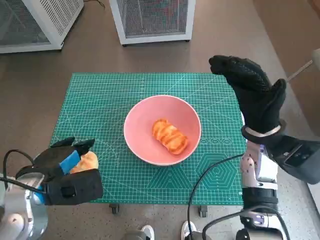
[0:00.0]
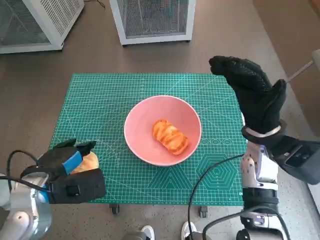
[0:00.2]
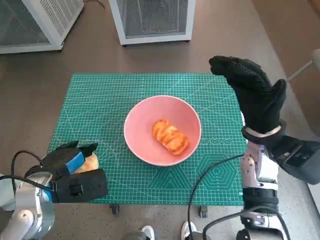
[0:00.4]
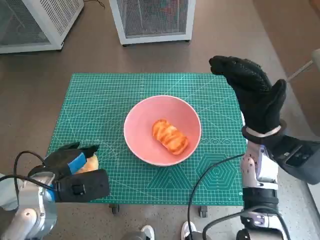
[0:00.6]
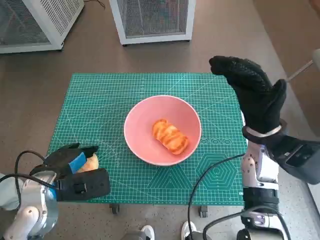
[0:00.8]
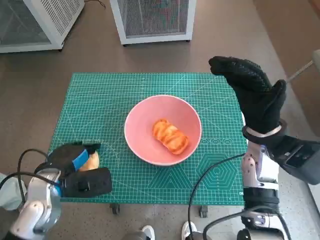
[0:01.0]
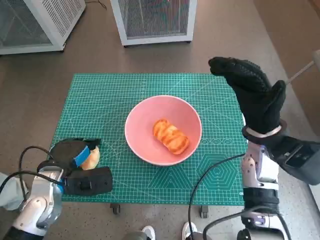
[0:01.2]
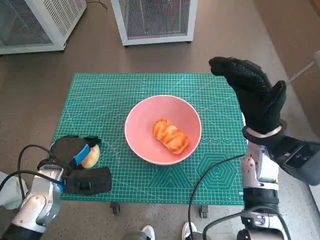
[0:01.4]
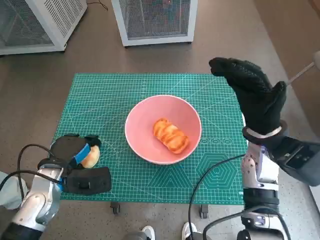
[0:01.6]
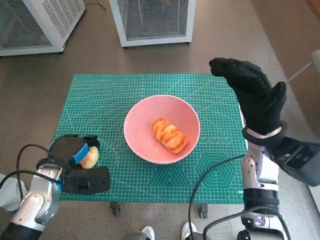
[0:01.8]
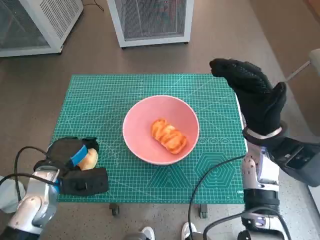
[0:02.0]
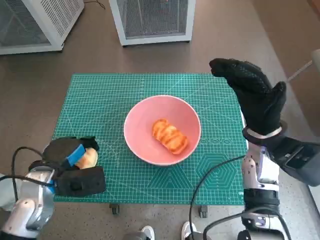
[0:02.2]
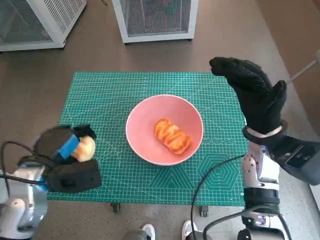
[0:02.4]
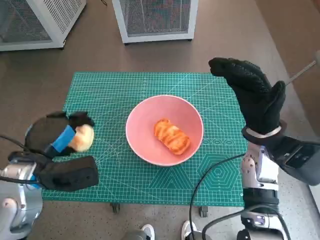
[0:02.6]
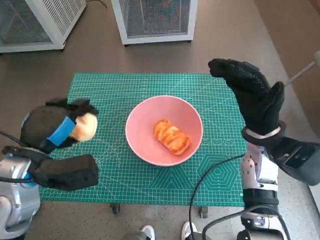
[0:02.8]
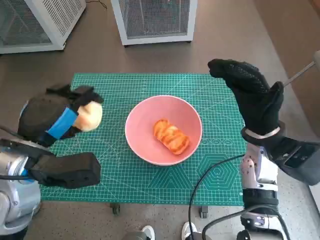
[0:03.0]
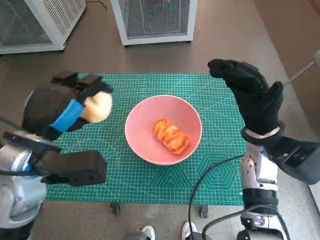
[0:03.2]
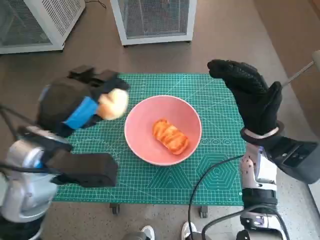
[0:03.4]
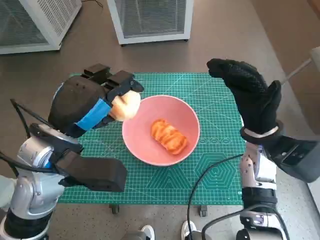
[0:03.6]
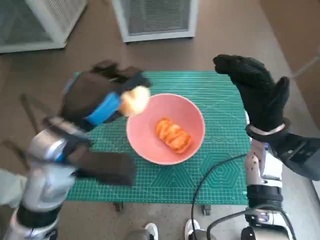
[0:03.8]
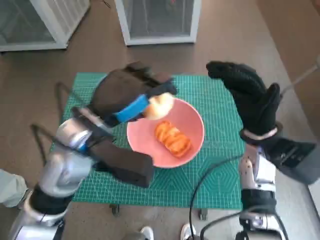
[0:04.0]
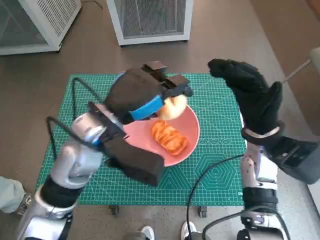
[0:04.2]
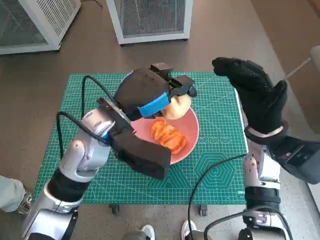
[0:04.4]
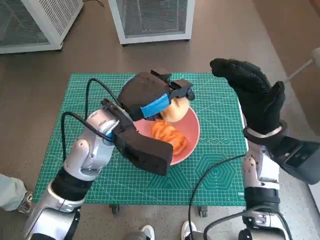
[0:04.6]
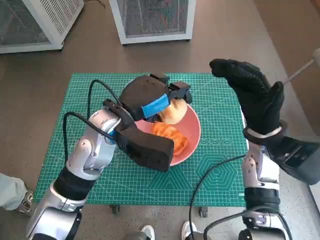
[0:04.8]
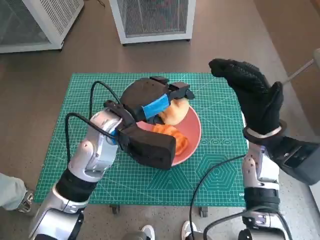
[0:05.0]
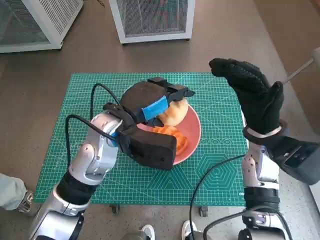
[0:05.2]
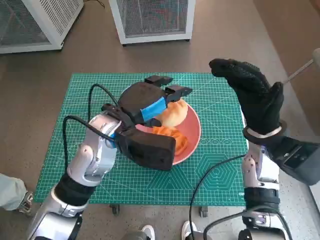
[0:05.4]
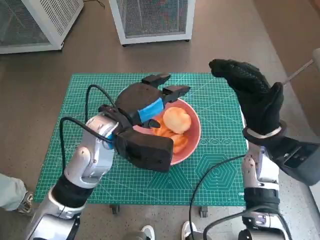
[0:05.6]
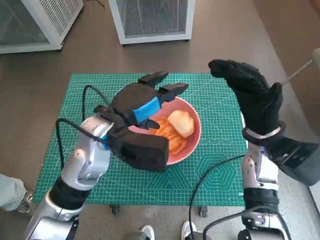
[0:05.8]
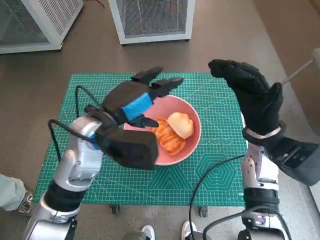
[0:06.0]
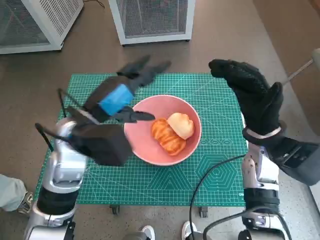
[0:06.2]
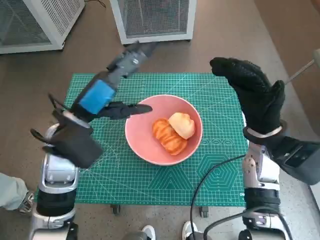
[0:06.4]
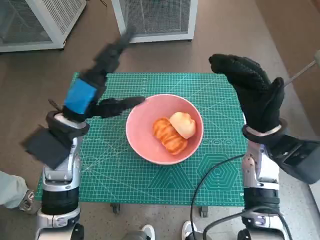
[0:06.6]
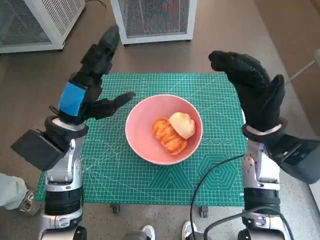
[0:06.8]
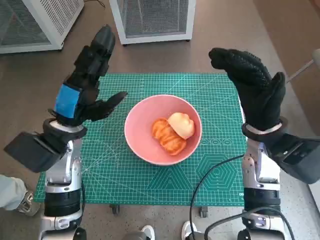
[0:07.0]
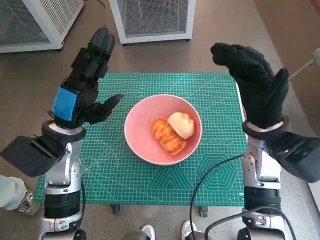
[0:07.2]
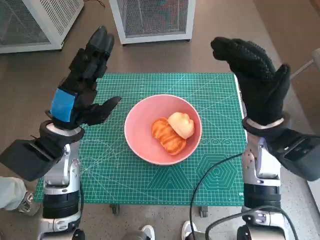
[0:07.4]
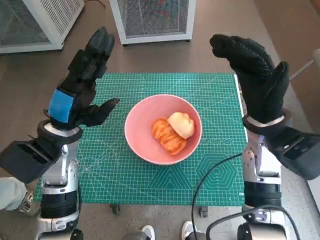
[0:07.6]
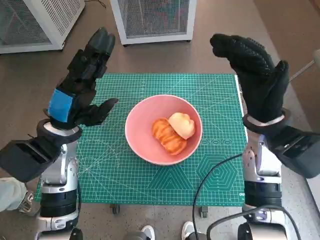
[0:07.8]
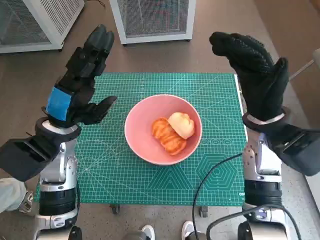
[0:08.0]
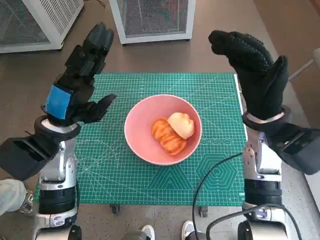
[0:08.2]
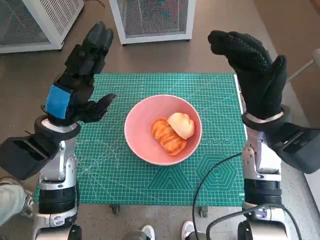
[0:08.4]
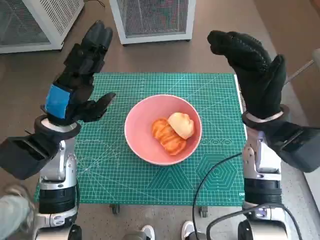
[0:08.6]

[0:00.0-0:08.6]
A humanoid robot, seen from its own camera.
Task of the whole recording: Push the bowl into the center of the table and put the bread into the bowl.
Step, 0:01.6 to 0:05.4: Place the round bread in pink bowl with left hand.
0:00.0 to 0:01.4: The left hand travels downward by some 5 cm.
0:01.4 to 0:02.8: The left hand shifts roughly 10 cm upward.
0:02.8 to 0:04.4: The left hand goes about 15 cm to the right and forward.
0:04.4 to 0:05.8: The hands make only small movements.
0:05.8 to 0:07.2: The left hand is displaced to the left by approximately 10 cm.
0:07.2 to 0:08.6: The hands stay close to where they were, moving slightly.

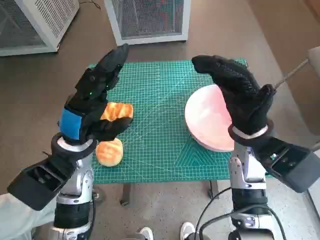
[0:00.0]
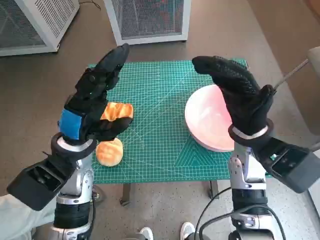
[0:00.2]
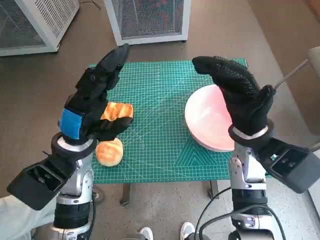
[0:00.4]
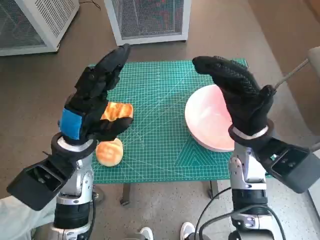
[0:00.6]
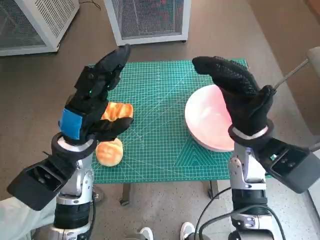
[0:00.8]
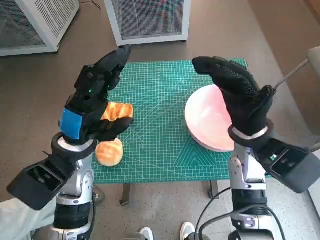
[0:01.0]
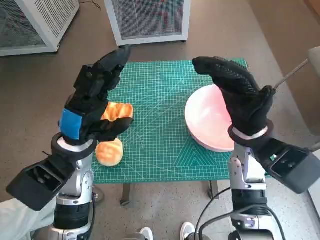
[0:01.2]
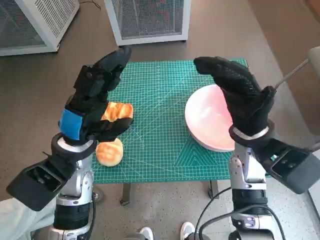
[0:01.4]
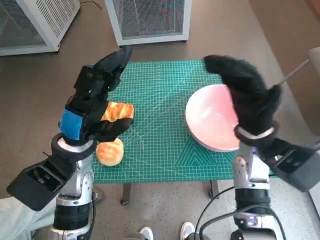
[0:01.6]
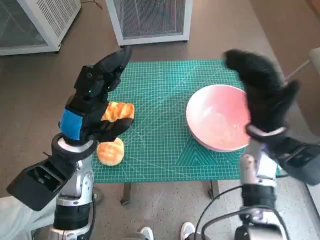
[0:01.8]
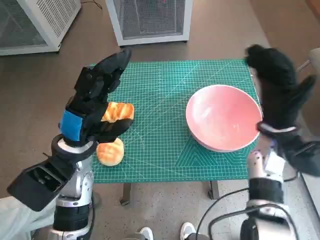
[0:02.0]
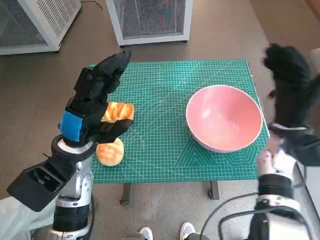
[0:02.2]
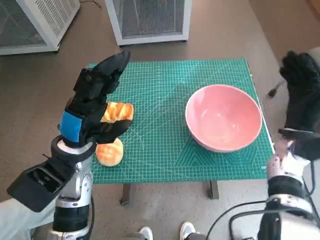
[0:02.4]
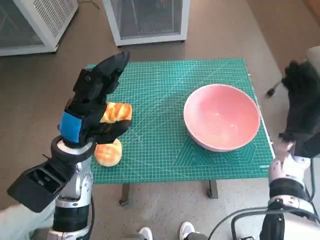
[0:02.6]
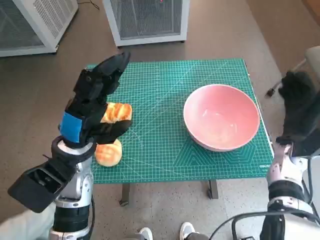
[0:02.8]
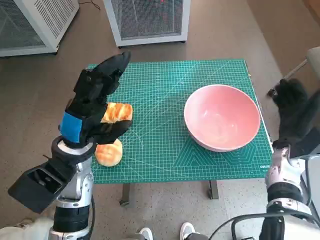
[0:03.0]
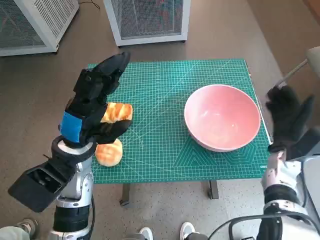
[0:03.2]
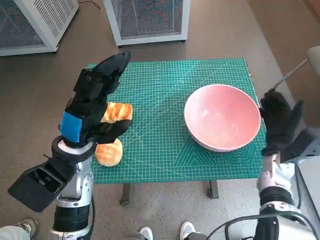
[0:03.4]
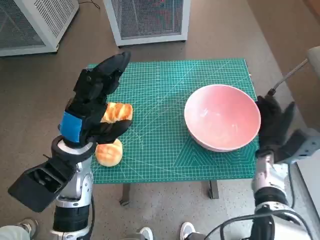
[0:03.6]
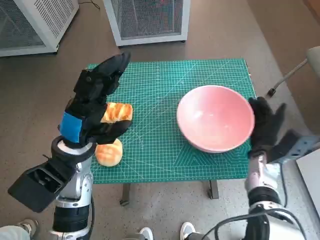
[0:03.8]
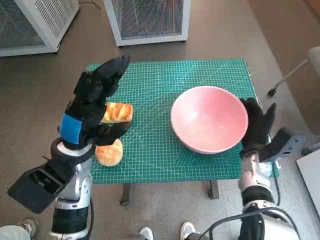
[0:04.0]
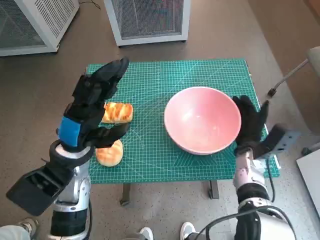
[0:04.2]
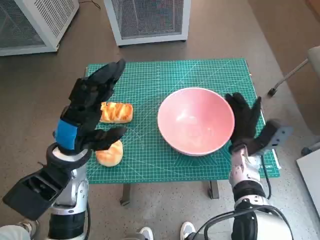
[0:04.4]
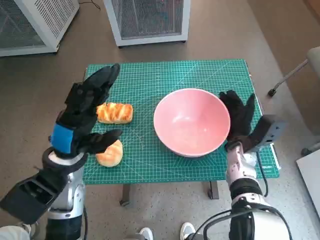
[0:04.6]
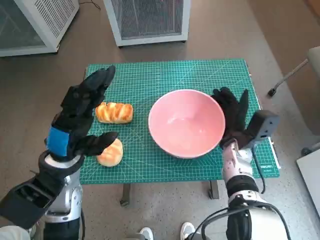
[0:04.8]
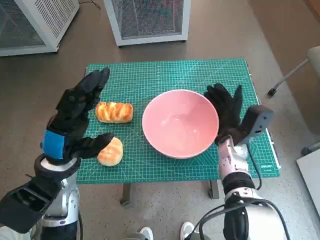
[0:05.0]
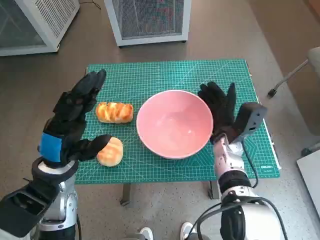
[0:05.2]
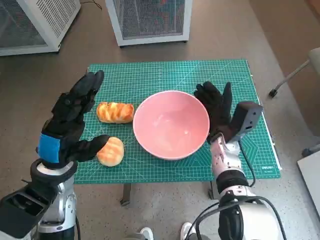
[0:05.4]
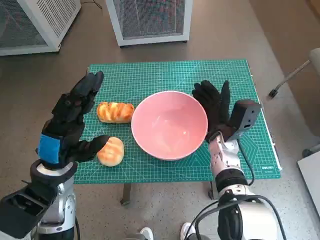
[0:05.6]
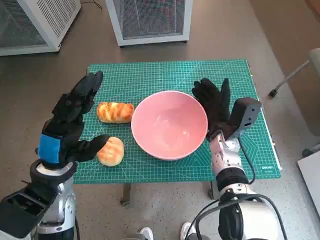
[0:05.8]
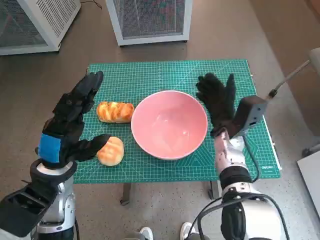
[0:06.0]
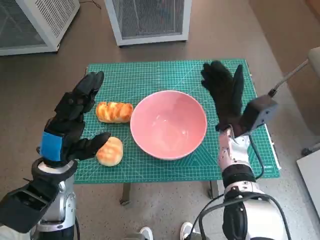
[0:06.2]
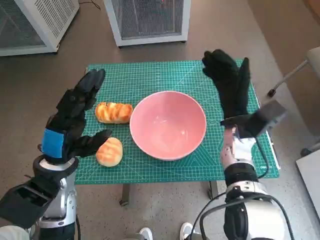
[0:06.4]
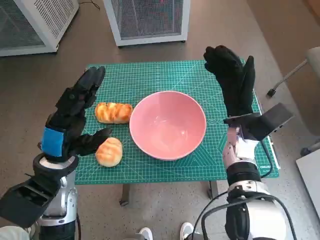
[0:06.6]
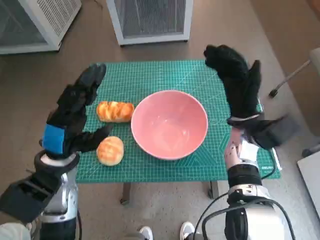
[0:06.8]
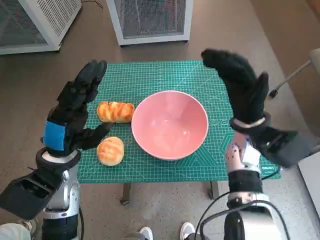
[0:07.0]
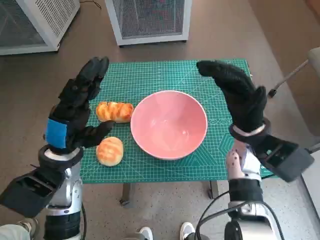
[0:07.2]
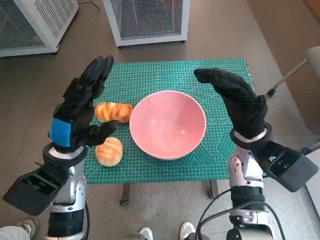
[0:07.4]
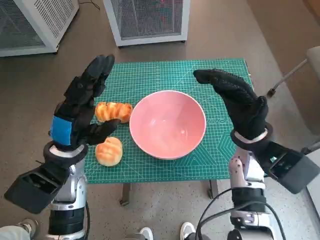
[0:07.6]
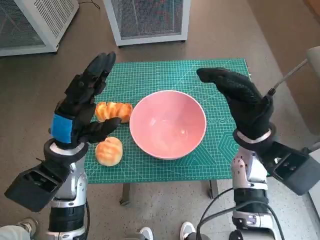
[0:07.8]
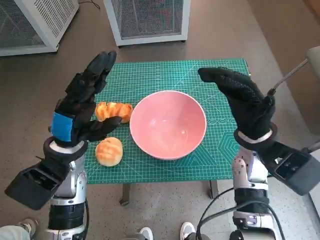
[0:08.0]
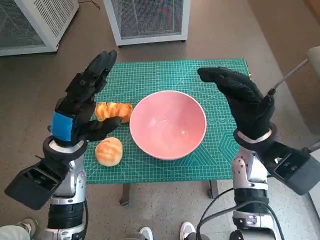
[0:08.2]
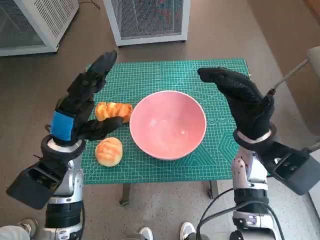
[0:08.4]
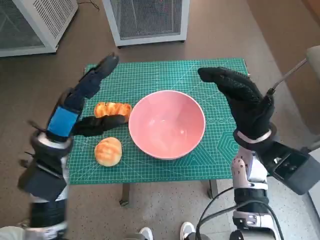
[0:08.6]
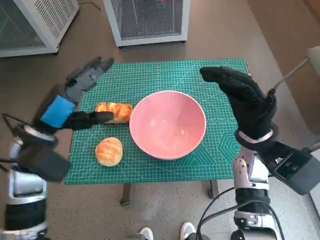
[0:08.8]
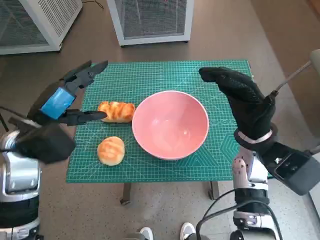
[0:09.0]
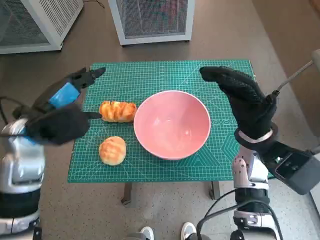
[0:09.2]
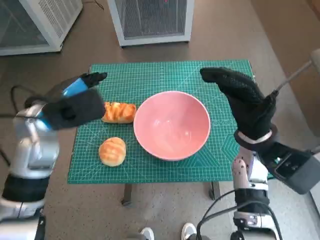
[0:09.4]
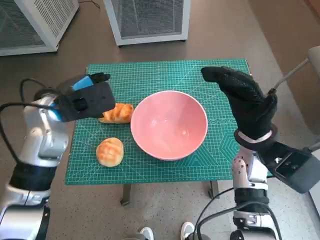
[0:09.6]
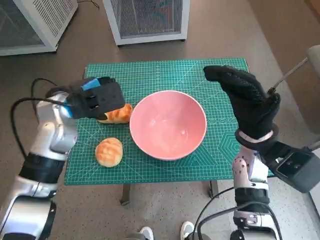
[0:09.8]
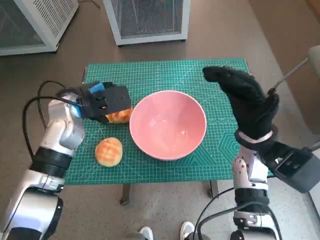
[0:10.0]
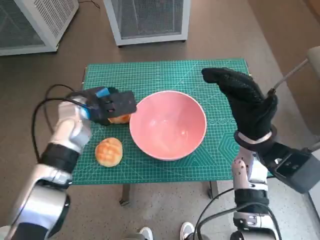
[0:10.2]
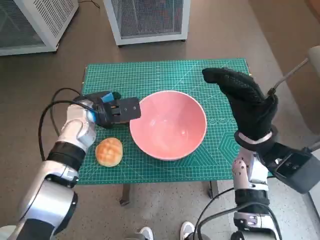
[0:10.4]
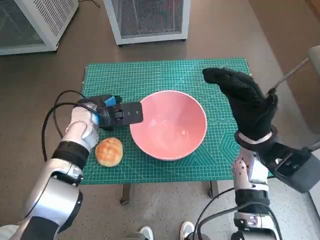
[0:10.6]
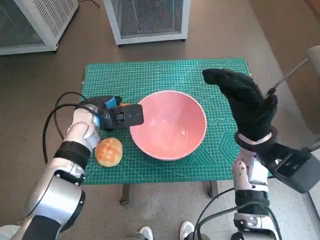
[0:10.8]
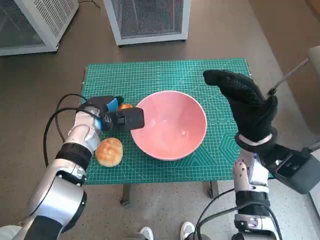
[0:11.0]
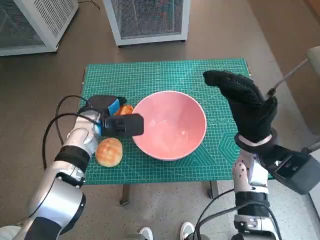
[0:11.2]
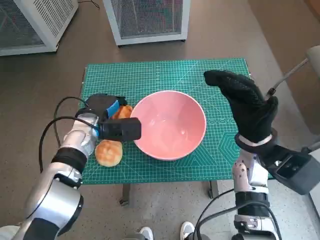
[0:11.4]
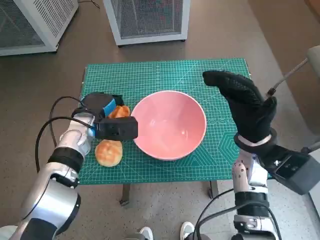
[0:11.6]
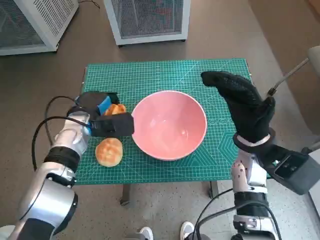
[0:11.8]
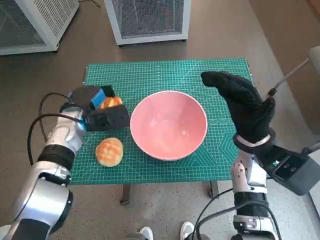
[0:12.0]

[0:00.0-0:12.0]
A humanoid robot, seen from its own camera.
Task of the whole recording: Push the bowl into the center of the table and put the bread into the bowl.
Step, 0:00.0 to 0:06.0: Move the pink bowl to the center of table with right hand.
Step, 0:06.2 to 0:11.2: Grasp the long bread with left hand.
0:01.6 to 0:03.0: The right hand shifts about 15 cm to the right and downward.
0:03.0 to 0:04.4: The right hand goes approximately 10 cm to the left.
0:04.4 to 0:06.0: The right hand shifts by roughly 5 cm.
0:06.0 to 0:07.6: The right hand travels upward by some 5 cm.
0:07.6 to 0:09.0: The left hand shifts by approximately 5 cm.
0:09.0 to 0:10.4: The left hand travels forward, to the right and downward by approximately 10 cm.
0:10.4 to 0:12.0: The hands stay close to where they were, moving slightly.

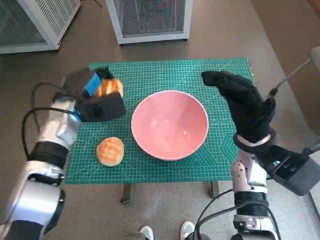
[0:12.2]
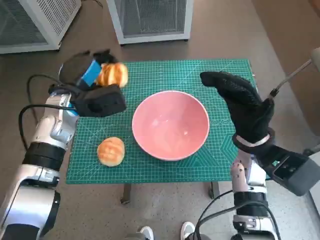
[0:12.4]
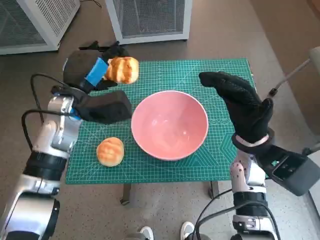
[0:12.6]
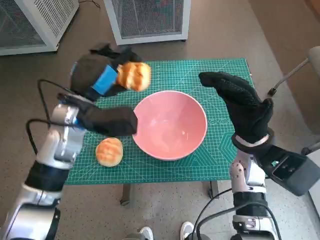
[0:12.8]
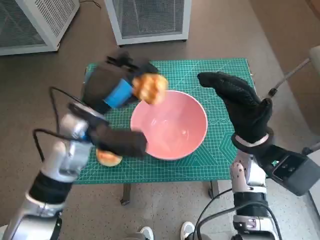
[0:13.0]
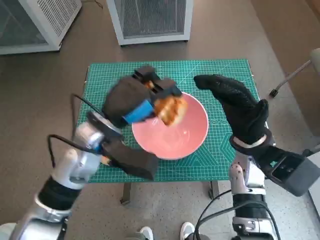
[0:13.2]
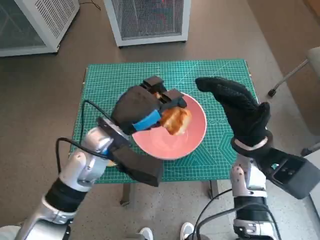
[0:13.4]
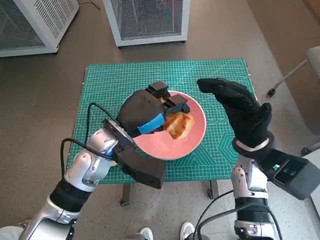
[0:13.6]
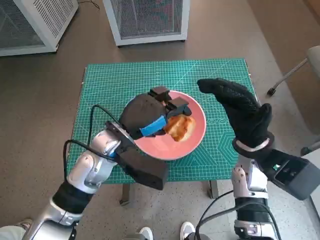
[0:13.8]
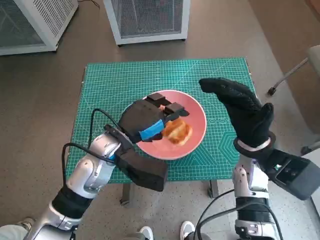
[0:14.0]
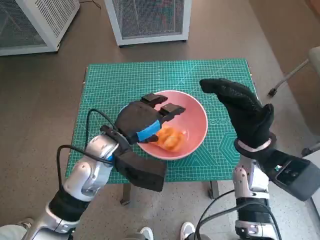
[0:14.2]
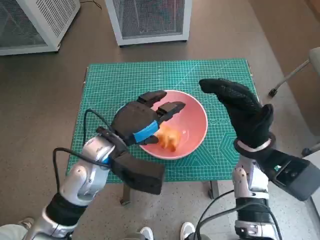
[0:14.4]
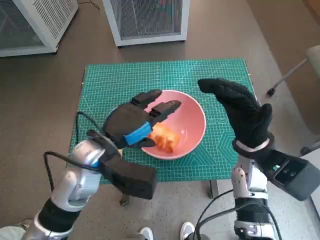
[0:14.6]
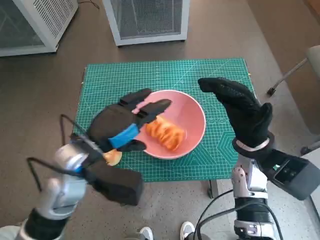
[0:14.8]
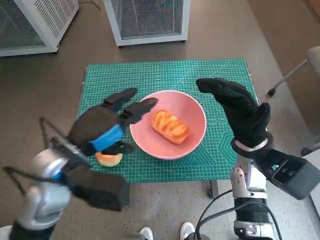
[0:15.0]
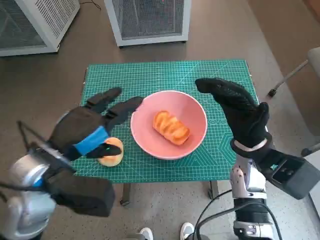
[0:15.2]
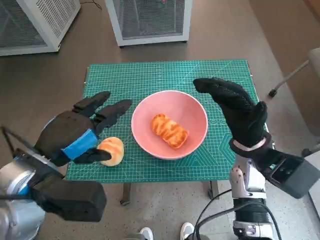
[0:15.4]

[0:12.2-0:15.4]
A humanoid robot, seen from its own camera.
Task of the whole recording: Push the bowl into the center of the table and put the bread into the bowl.
Step, 0:12.2 to 0:14.0: Place the long bread in pink bowl with left hand.
0:12.2 to 0:13.8: The left hand is displaced to the right and backward by some 15 cm.
0:13.8 to 0:15.4: The left hand moves backward, to the left and upward, about 15 cm.
